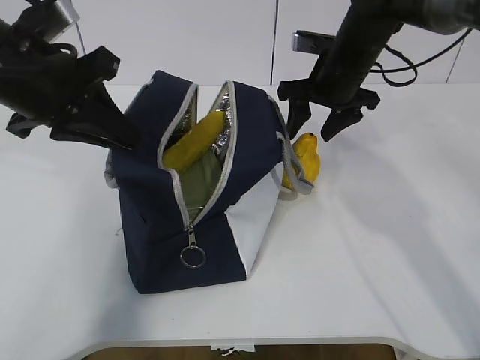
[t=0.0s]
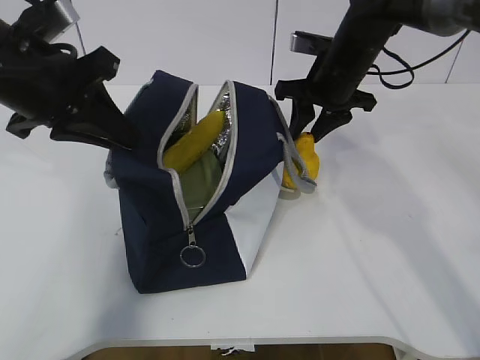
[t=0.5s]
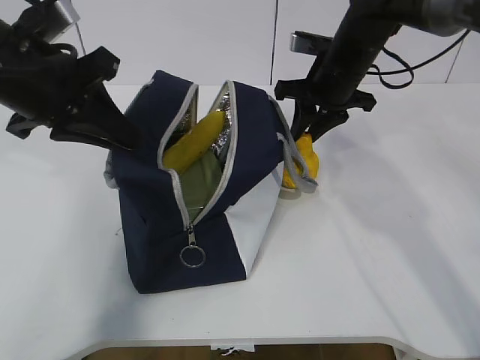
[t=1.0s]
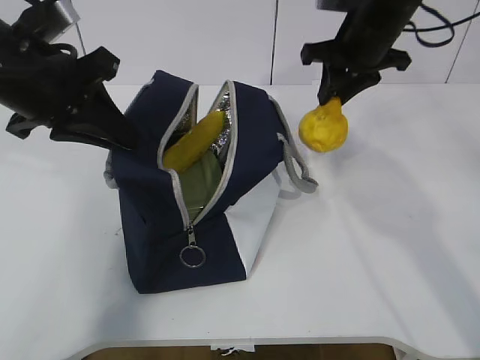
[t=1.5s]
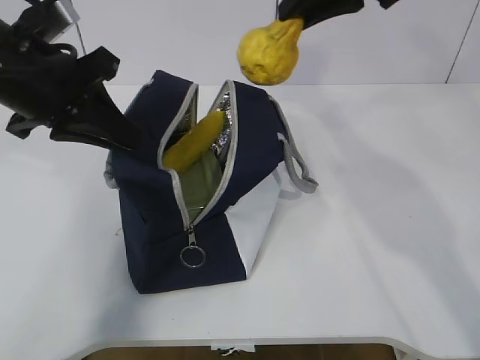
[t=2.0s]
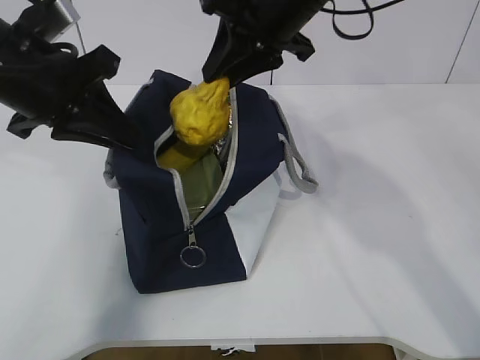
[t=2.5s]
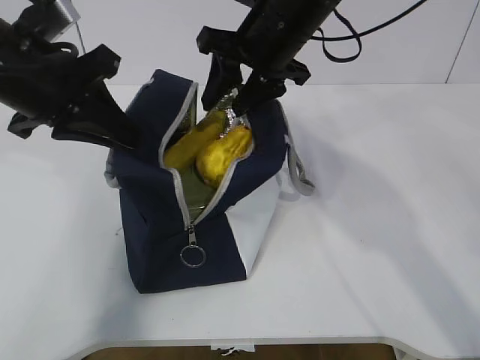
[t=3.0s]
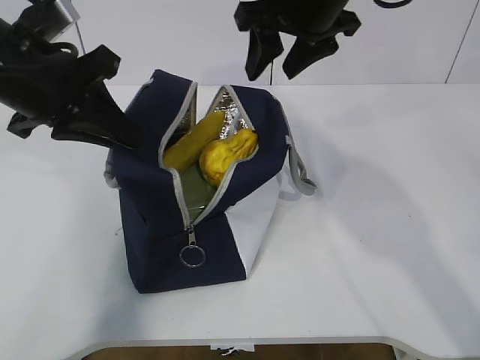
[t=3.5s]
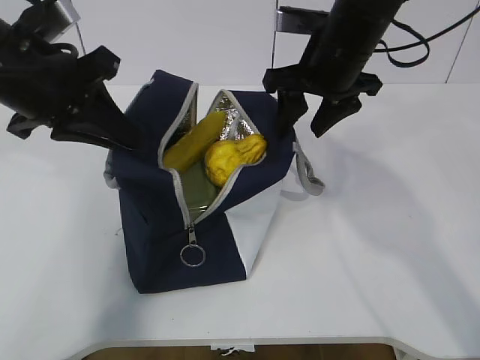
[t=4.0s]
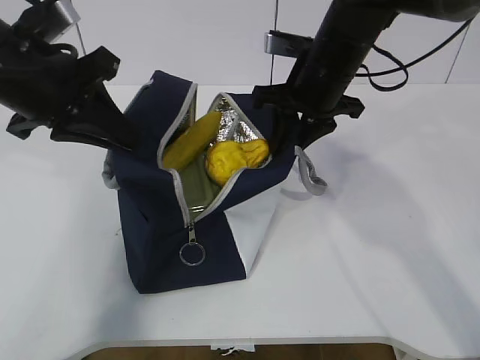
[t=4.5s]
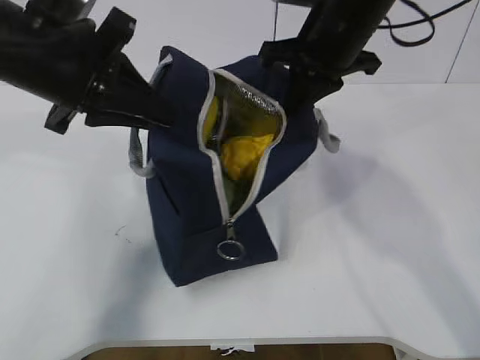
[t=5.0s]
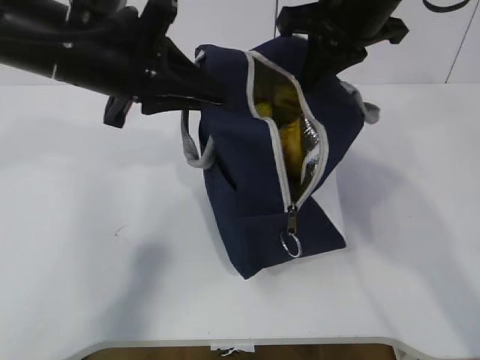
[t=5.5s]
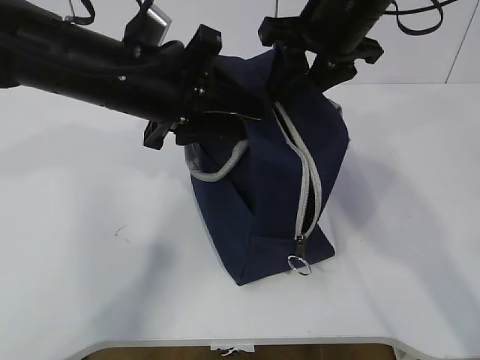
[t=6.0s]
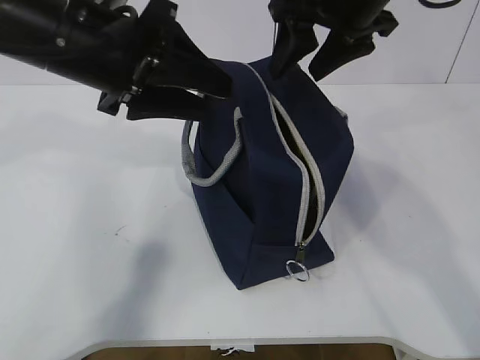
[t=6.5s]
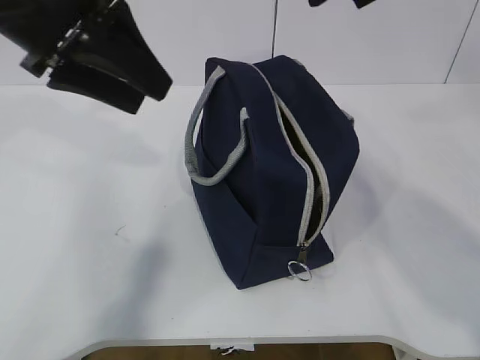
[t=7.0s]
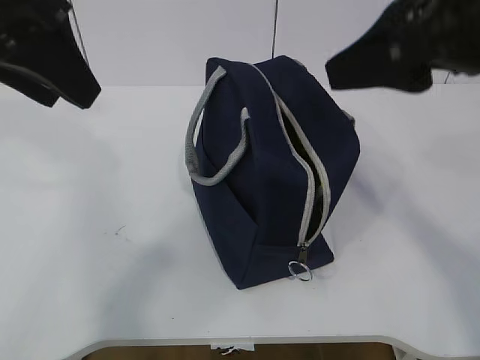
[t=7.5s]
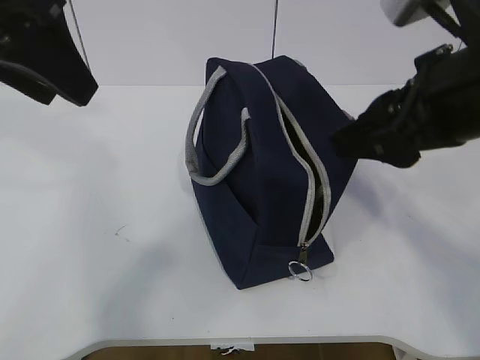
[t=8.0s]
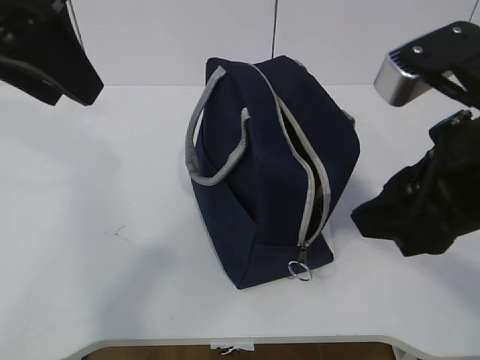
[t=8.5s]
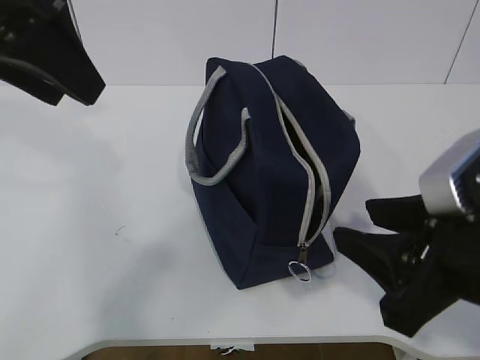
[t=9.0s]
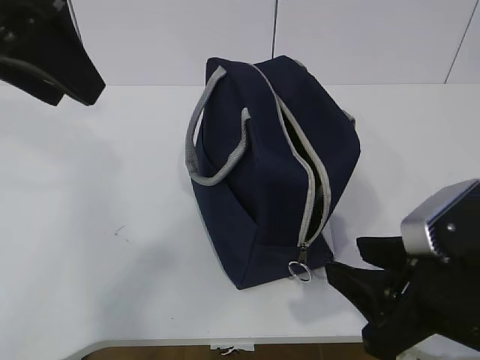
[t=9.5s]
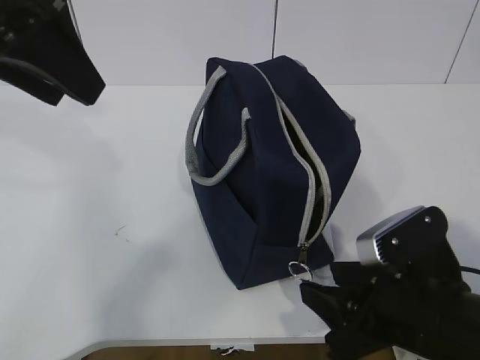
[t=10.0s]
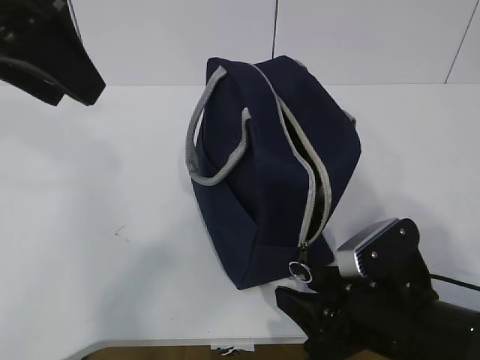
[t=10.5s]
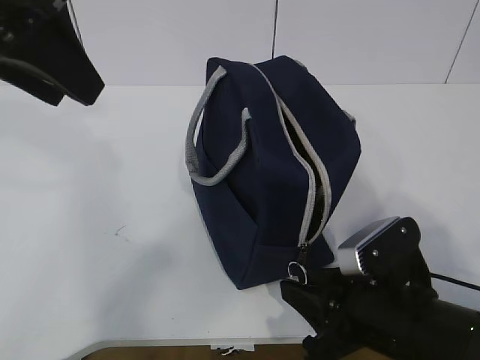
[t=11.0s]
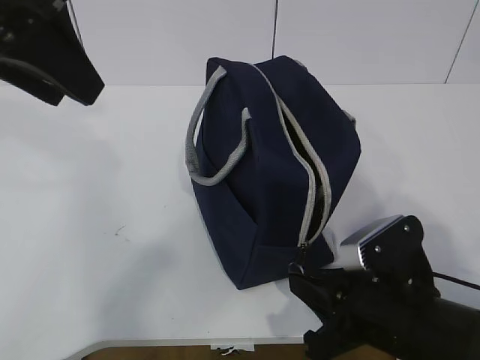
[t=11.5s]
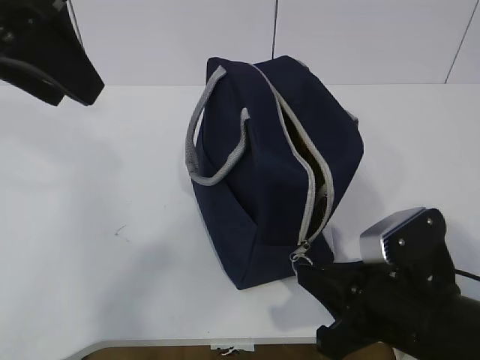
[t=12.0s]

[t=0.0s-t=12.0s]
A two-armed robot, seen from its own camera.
t=0.0s to t=2.0s: The right gripper goes about 15 cm upward, and closes its fingers.
t=2.0s to t=4.0s: The right gripper goes up and down, about 10 cm each way, reversing 2 times, and opens its fingers.
t=4.0s to t=6.0s: The right gripper changes place by approximately 5 cm, and closes, then opens again. The left gripper moves to the right, about 10 cm, and opens up.
t=6.0s to t=8.0s: The right gripper moves backward, roughly 15 cm; the left gripper moves upward, to the left and backward, about 15 cm.
t=8.0s to t=10.0s: The right gripper is displaced downward by some 20 cm.
t=10.0s to t=12.0s: The right gripper closes up.

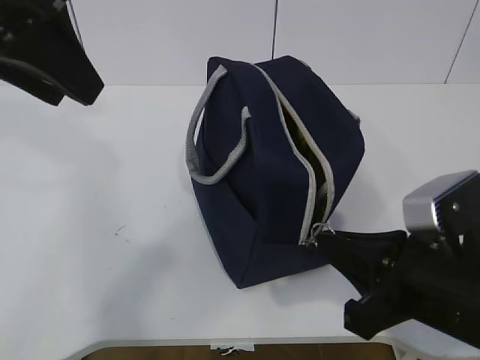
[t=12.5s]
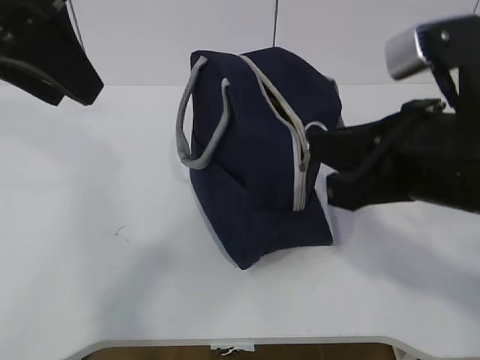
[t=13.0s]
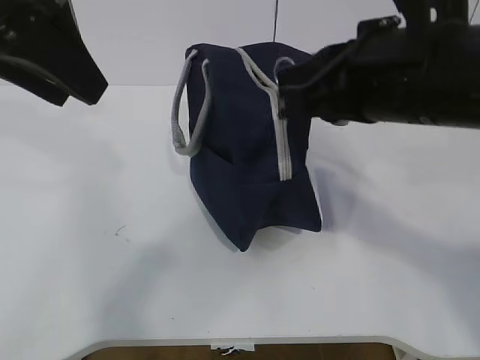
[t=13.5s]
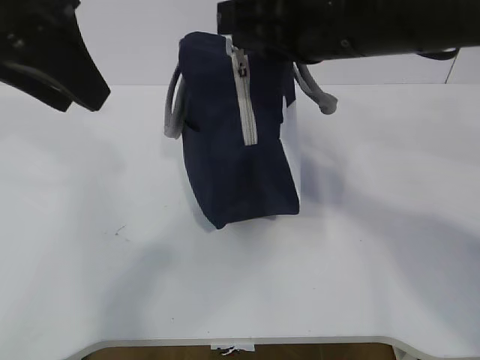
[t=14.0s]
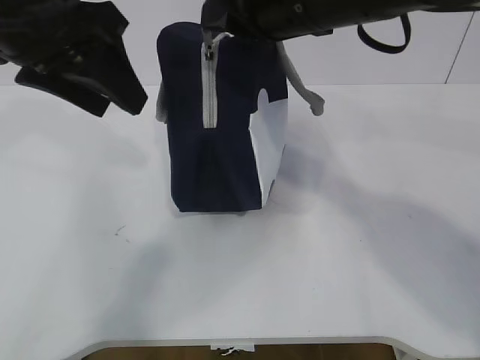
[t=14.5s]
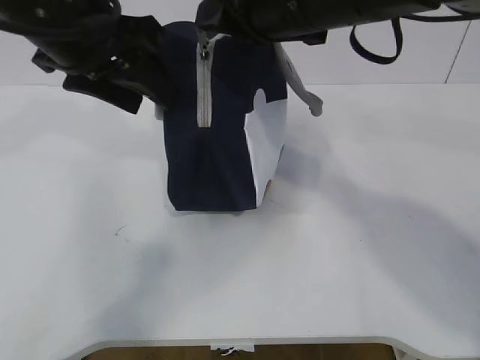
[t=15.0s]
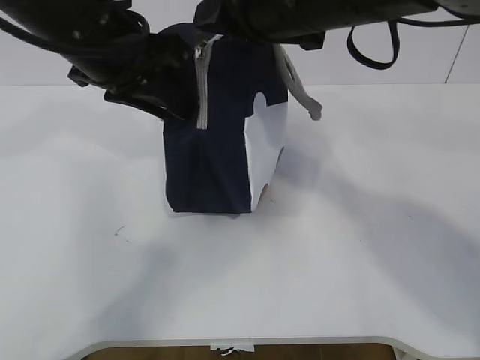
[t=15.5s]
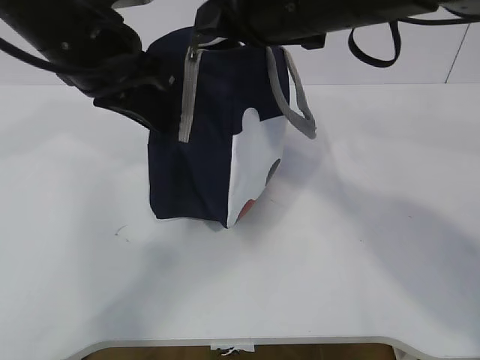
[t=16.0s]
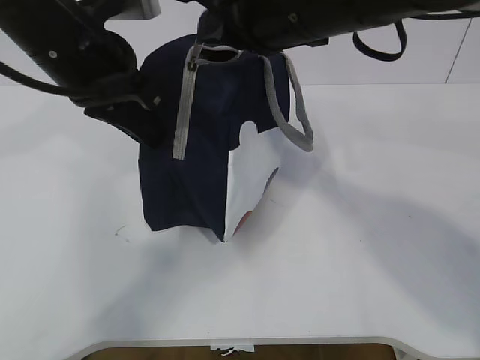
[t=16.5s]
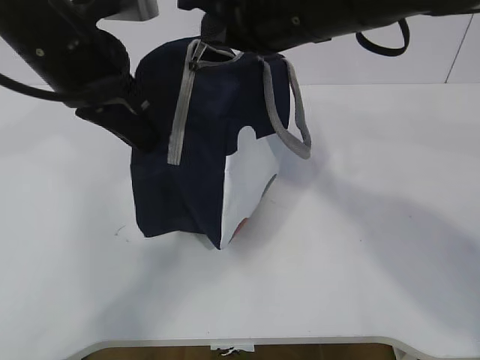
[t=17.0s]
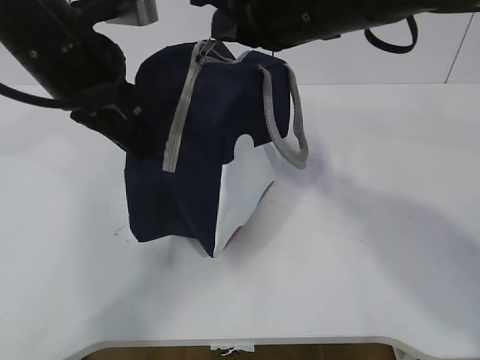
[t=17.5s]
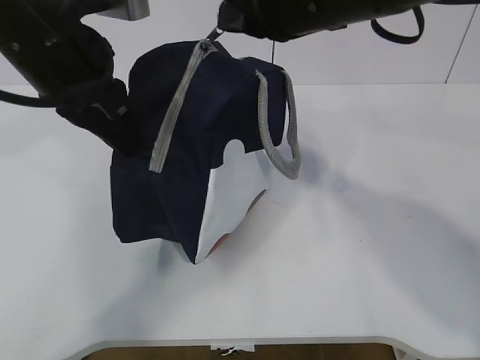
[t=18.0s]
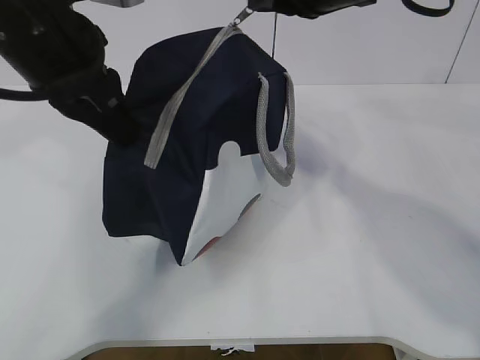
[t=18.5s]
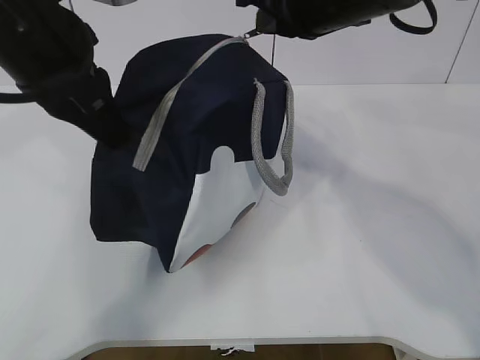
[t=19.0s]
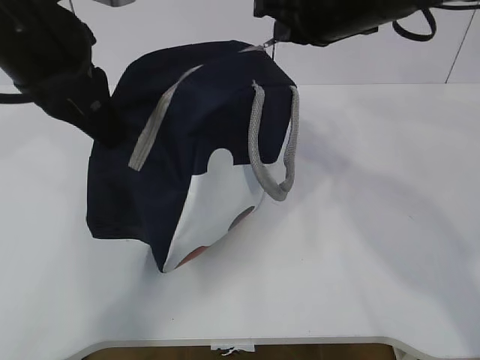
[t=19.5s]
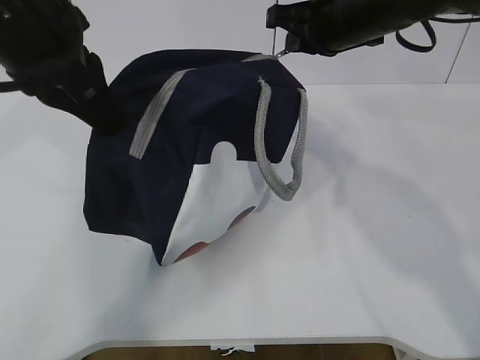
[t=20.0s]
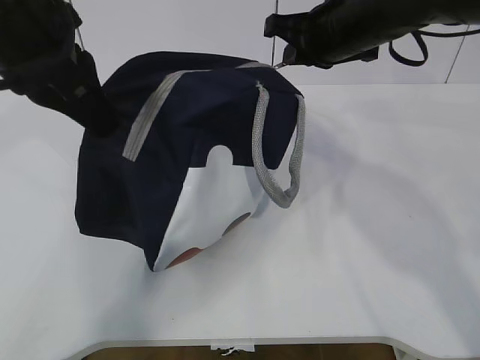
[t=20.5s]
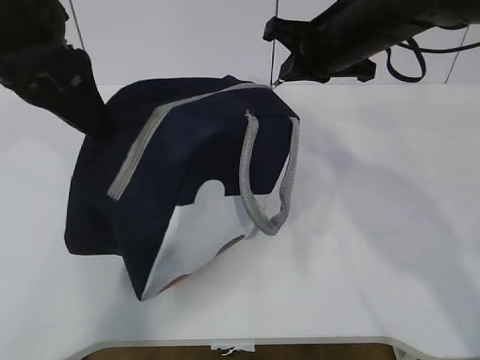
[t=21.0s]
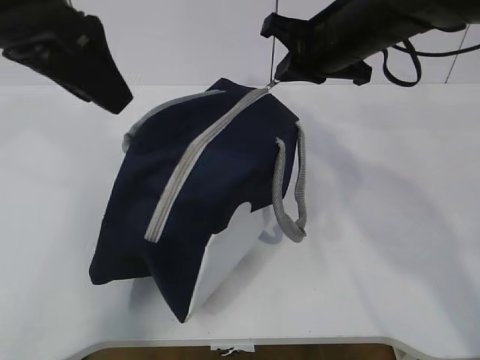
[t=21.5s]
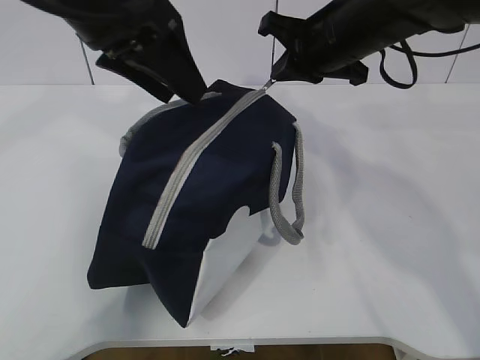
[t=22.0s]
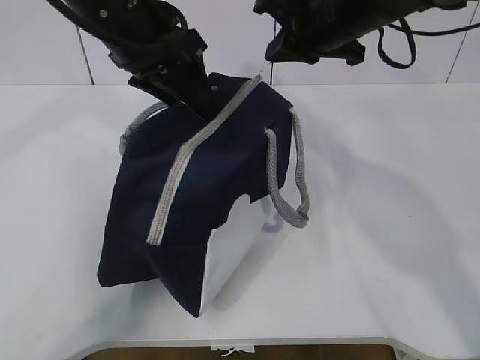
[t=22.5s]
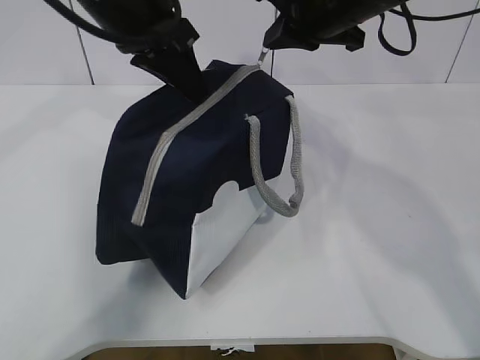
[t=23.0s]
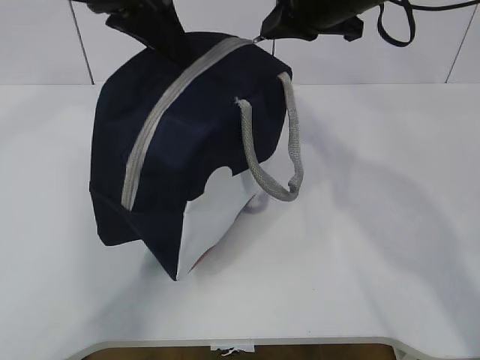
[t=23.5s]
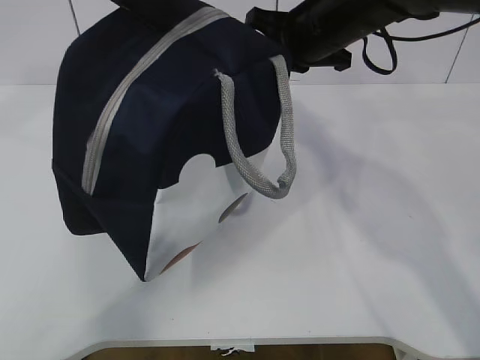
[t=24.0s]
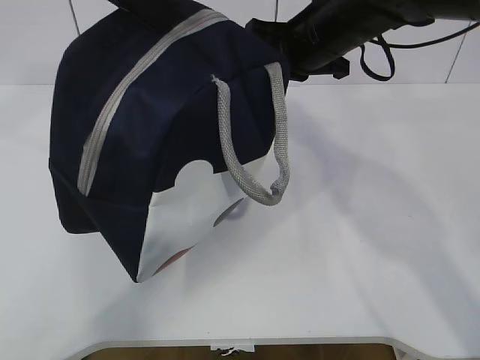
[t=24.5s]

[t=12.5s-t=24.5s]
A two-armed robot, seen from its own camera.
Step, t=13.5s to t=17.0s: Pull the zipper with your right hand.
Step, t=17.5s to t=18.5s: Grab the lunch bag with your left hand.
t=12.5s to t=14.5s: The right gripper travels upward, forward and to the left by some 25 cm.
t=14.5s to t=16.5s: The left gripper shifts some 5 cm downward, and closes up.
t=16.5s to t=18.5s: The right gripper changes place by about 5 cm.
t=18.5s to t=20.5s: The right gripper moves forward and downward, roughly 10 cm.
t=20.5s to t=22.5s: The left gripper goes roughly 10 cm forward and to the right, and opens.
t=22.5s to t=24.5s: The left gripper shifts about 10 cm upward, and closes up.

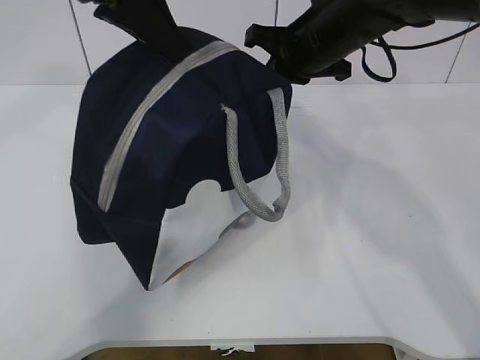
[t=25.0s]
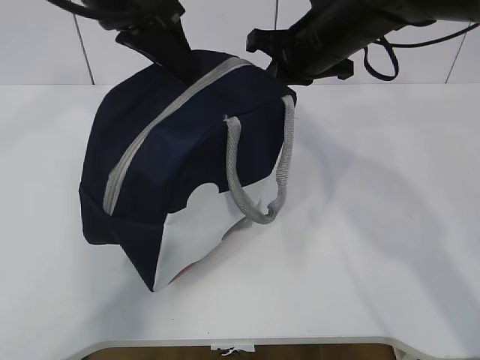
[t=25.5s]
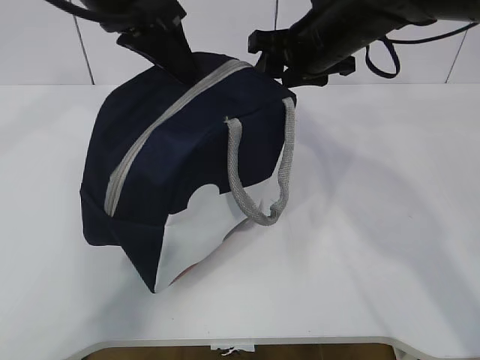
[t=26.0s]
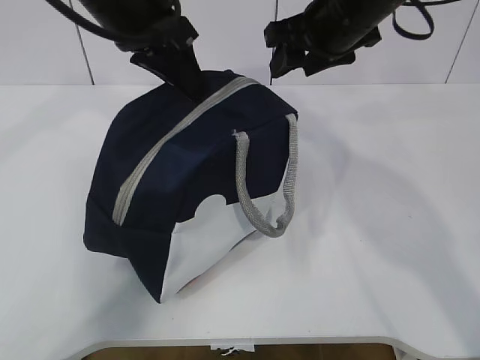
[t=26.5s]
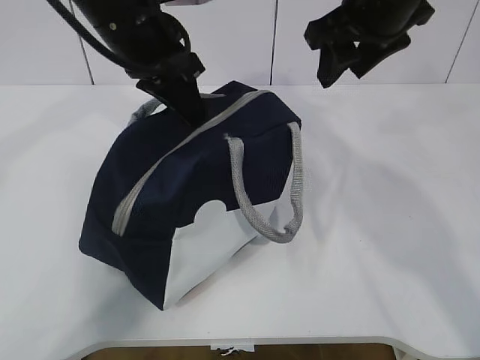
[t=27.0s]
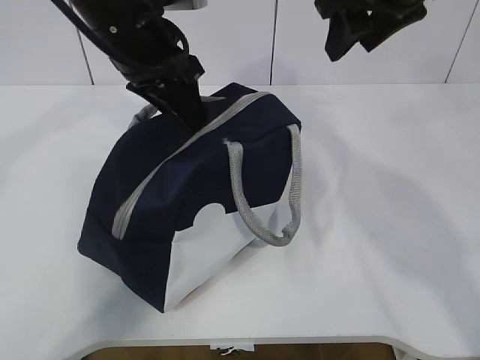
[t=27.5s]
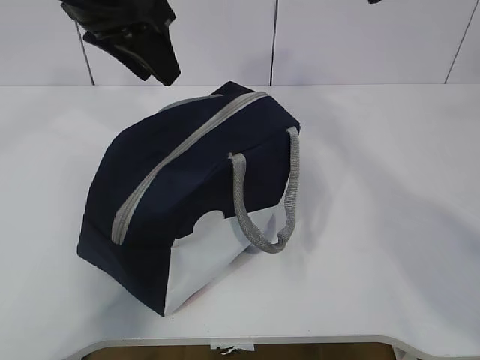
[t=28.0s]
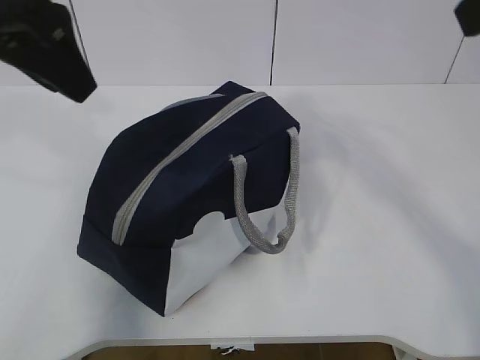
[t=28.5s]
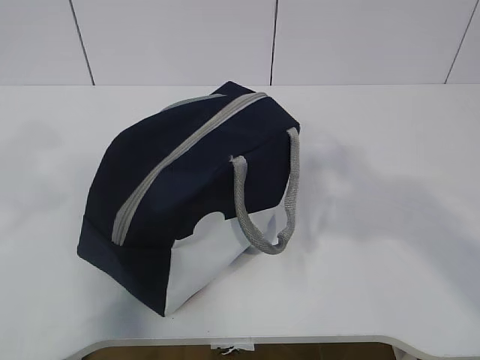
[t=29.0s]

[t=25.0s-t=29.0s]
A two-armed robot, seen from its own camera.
t=25.0s to t=27.0s: The right gripper is displaced upward by about 5 cm, and opens its fingers. The left gripper is displaced downward by approximately 10 cm.
t=27.0s to t=29.0s: The right gripper travels backward by some 30 cm. Meanwhile the left gripper moves backward, to the left and upward, approximately 25 cm, and opens its fingers.
